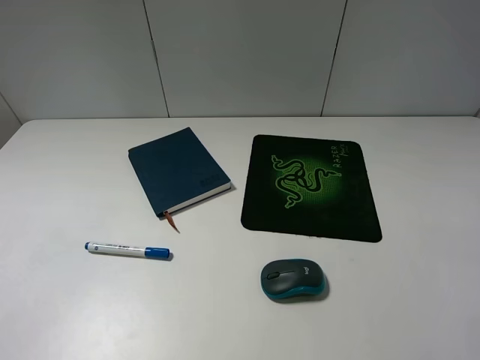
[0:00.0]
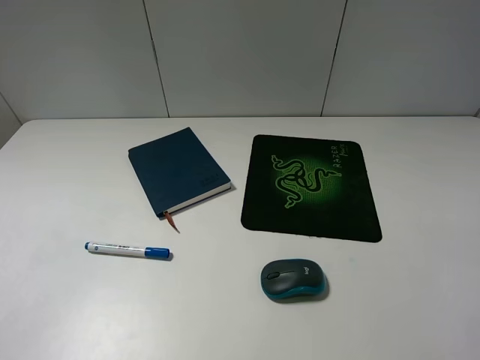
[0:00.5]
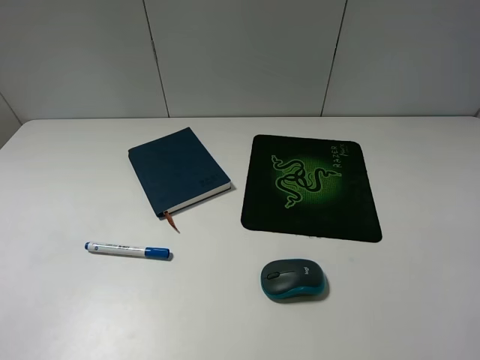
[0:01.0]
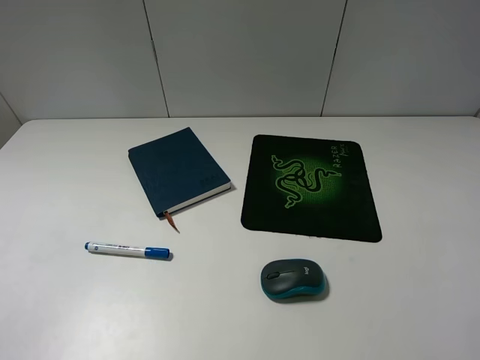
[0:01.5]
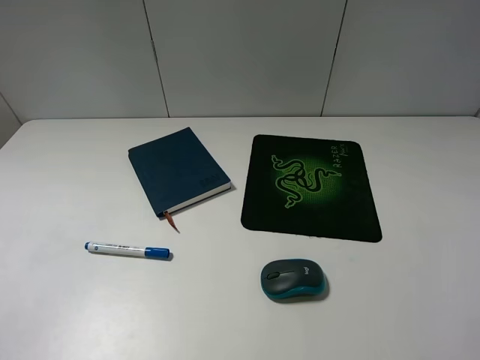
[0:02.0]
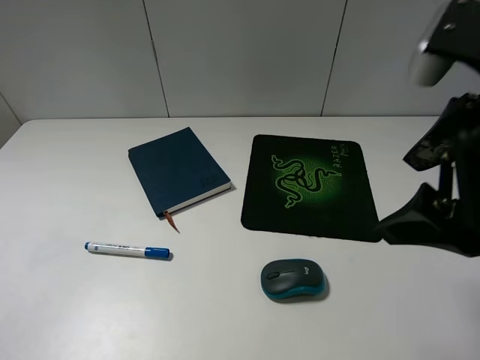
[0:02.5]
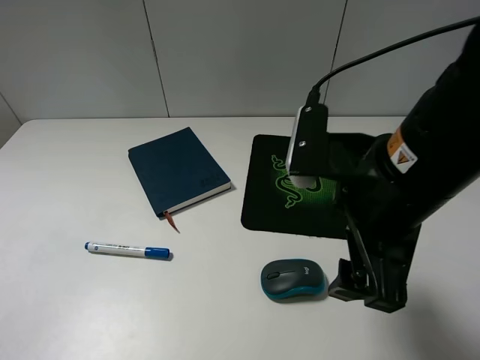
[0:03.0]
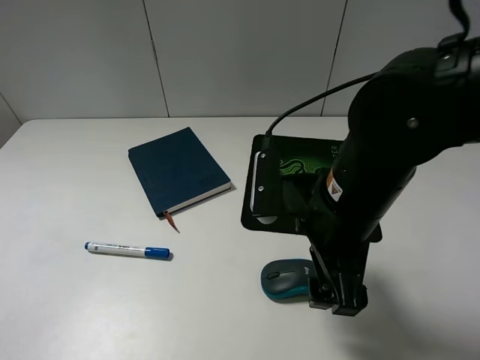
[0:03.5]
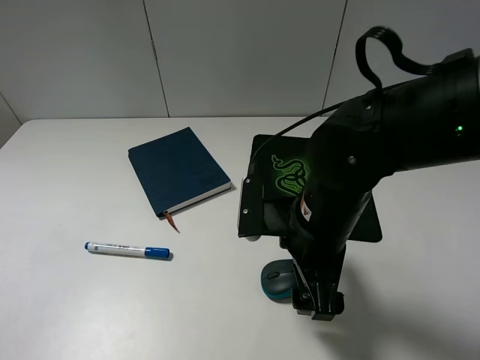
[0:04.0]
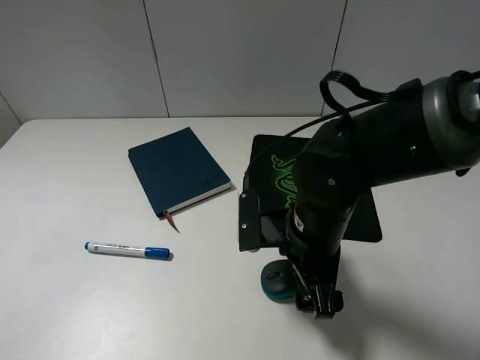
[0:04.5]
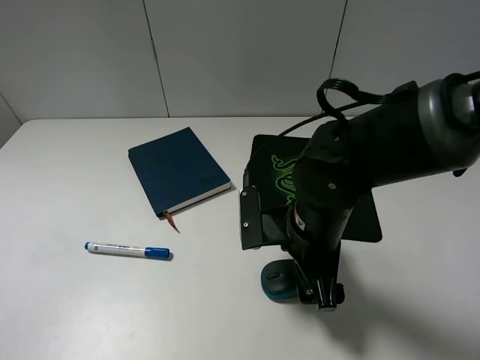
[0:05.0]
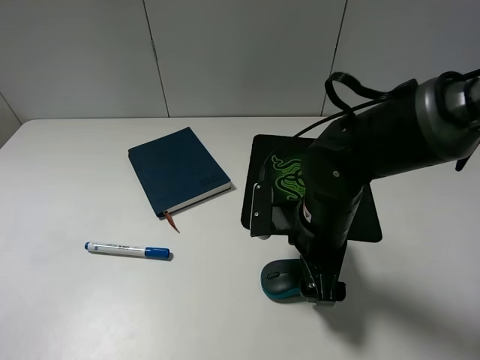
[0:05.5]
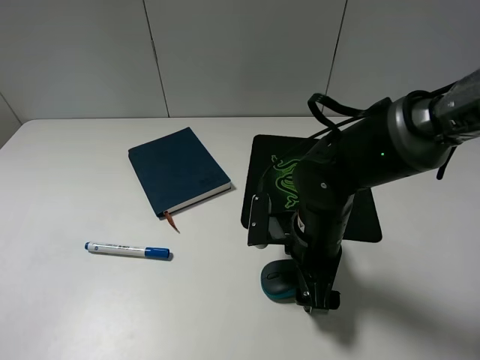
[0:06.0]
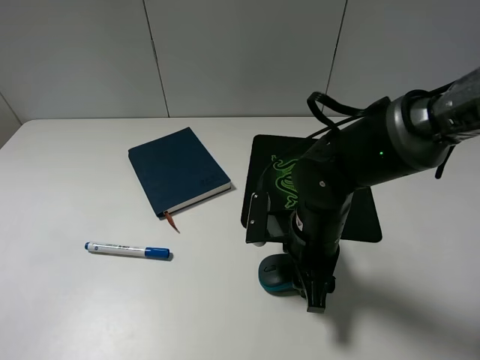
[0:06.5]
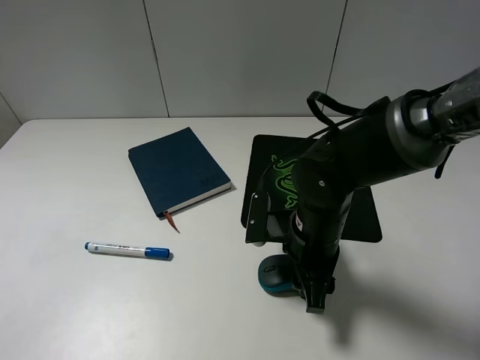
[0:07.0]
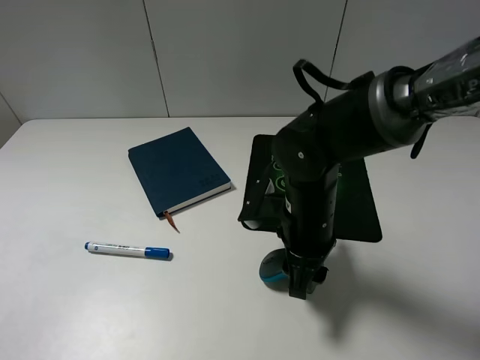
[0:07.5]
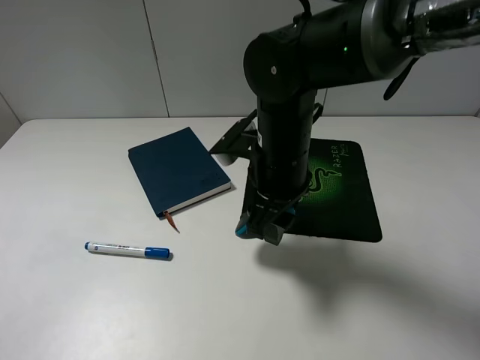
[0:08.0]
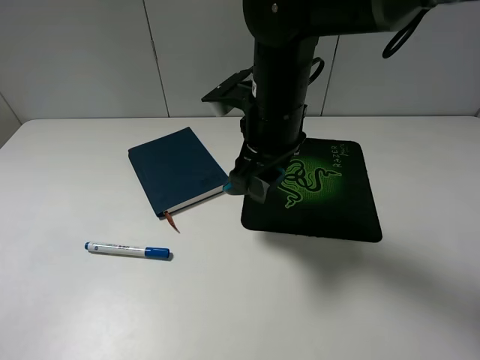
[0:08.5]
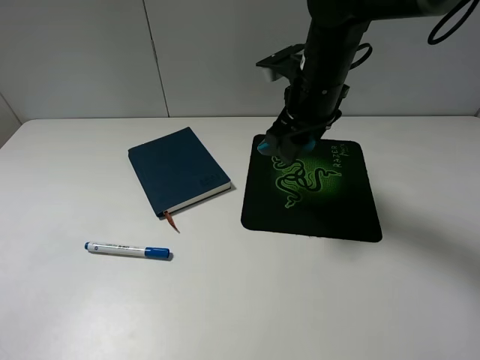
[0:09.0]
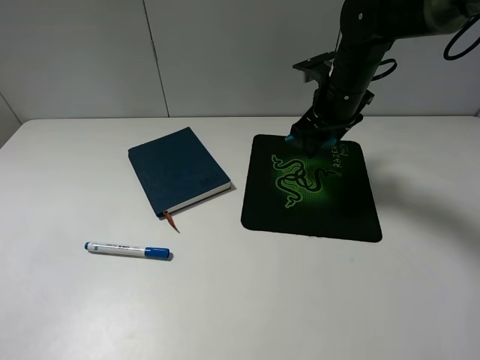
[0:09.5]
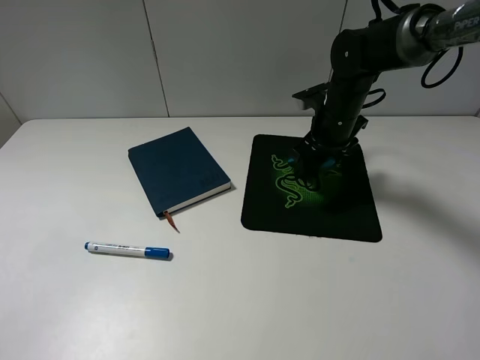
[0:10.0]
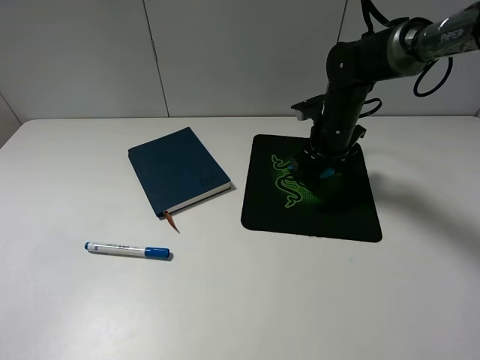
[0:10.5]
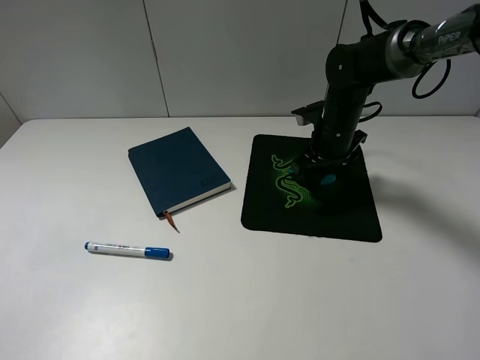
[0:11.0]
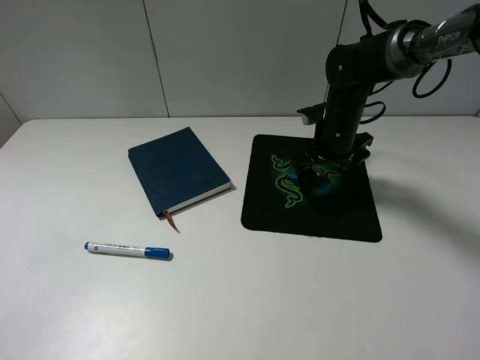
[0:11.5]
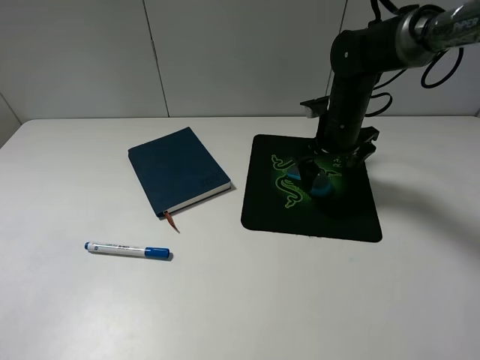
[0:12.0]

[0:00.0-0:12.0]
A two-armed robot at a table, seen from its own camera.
Step, 0:00.0 to 0:06.5: Grasp the mouse with the right gripper.
Step, 0:07.0 to 0:11.5: Place the mouse on the mouse pad with the right gripper.
0:02.0 to 0:04.0: The right gripper moves downward, to the left and forward, some 30 cm.
0:04.0 to 0:06.0: The right gripper travels downward by about 5 cm.
0:06.0 to 0:08.0: The right gripper goes about 10 cm upward and to the left, and closes.
0:08.0 to 0:10.0: The right gripper shifts some 20 cm forward and to the right.
0:10.0 to 0:12.0: The right gripper opens its fingers.

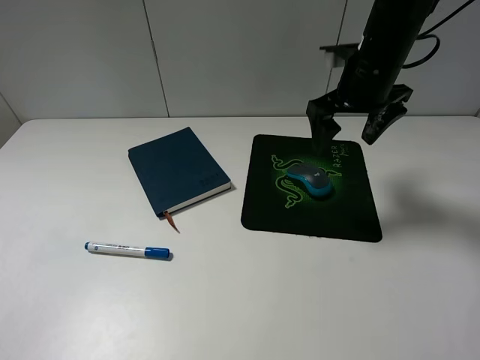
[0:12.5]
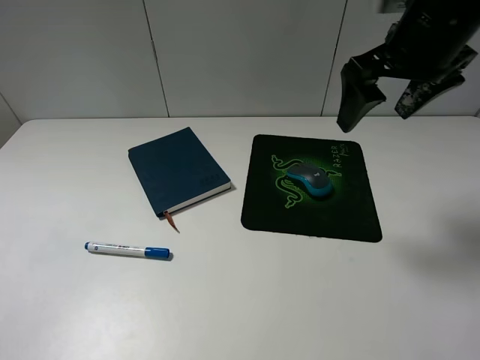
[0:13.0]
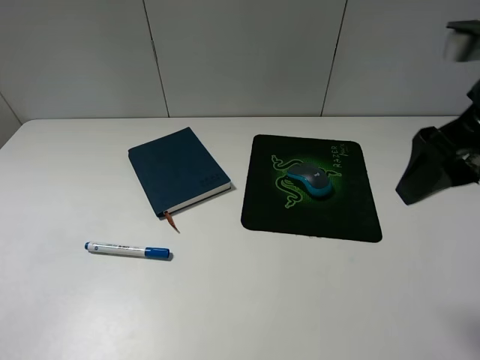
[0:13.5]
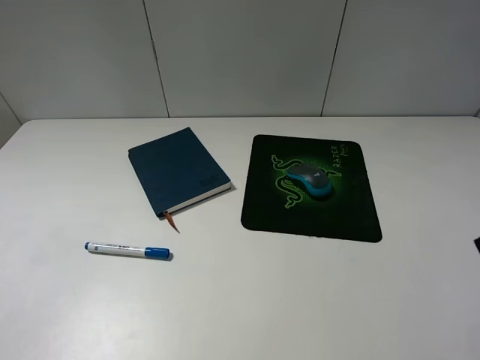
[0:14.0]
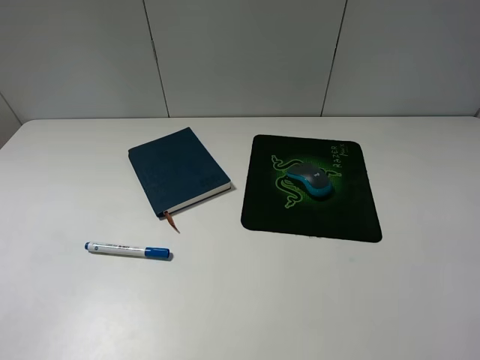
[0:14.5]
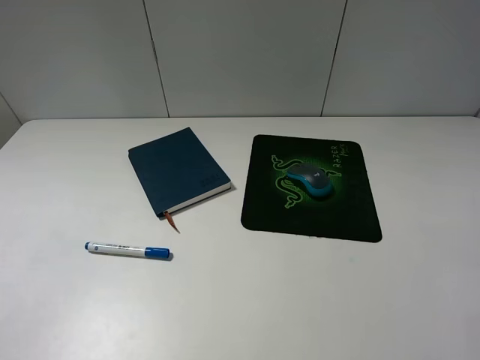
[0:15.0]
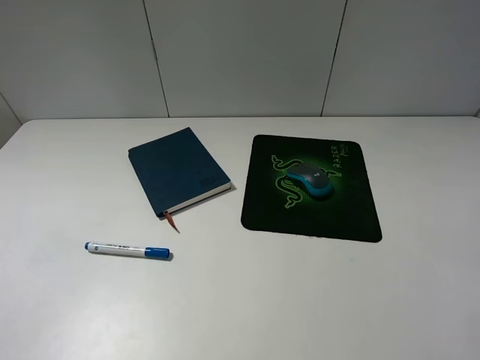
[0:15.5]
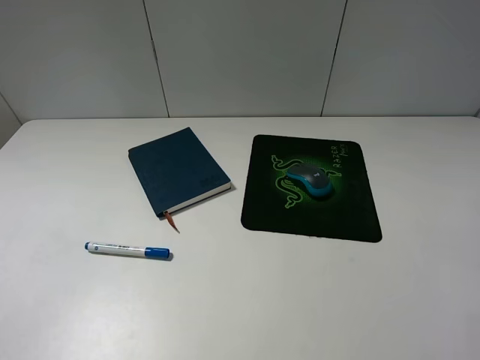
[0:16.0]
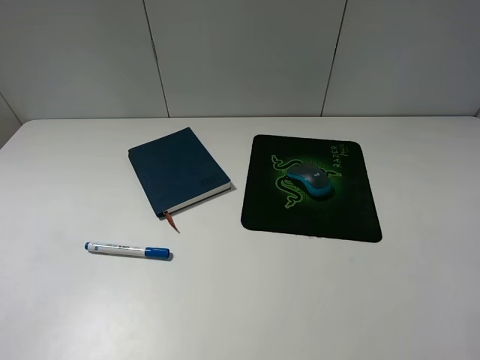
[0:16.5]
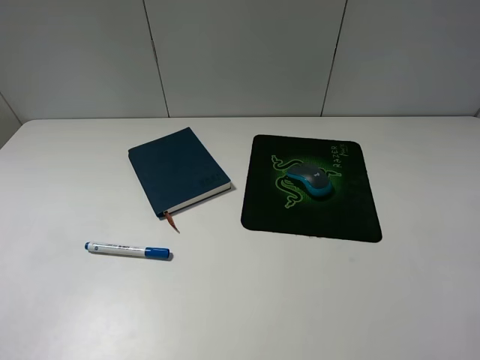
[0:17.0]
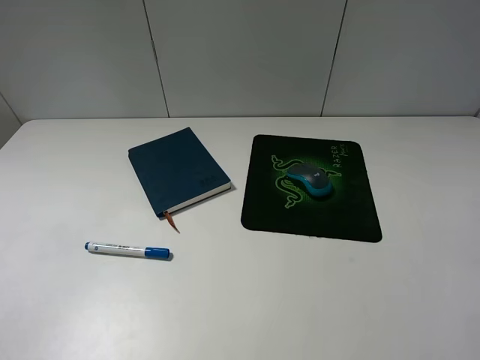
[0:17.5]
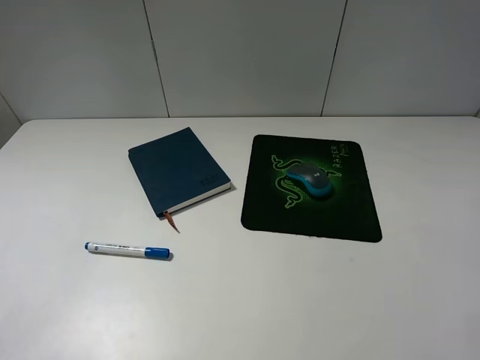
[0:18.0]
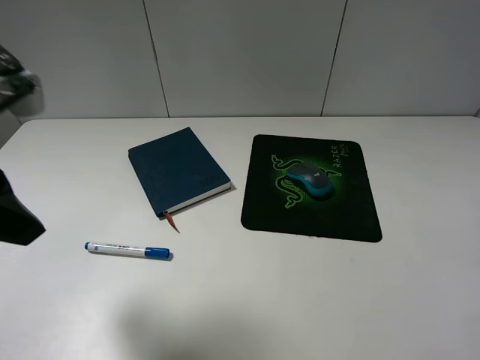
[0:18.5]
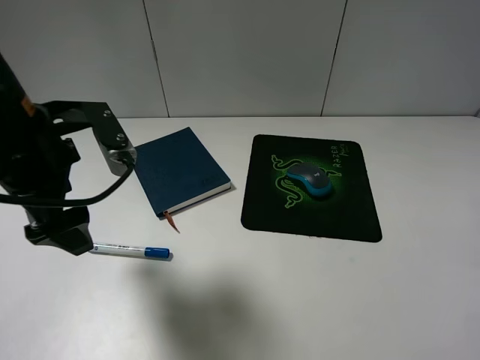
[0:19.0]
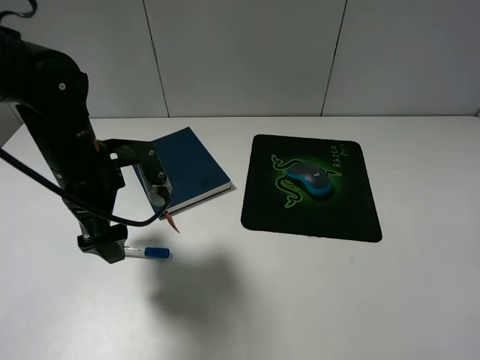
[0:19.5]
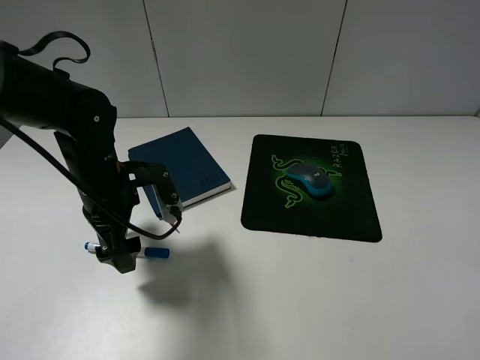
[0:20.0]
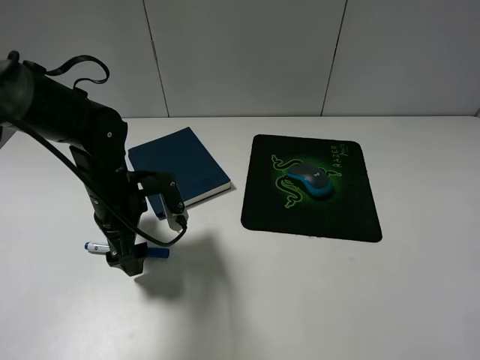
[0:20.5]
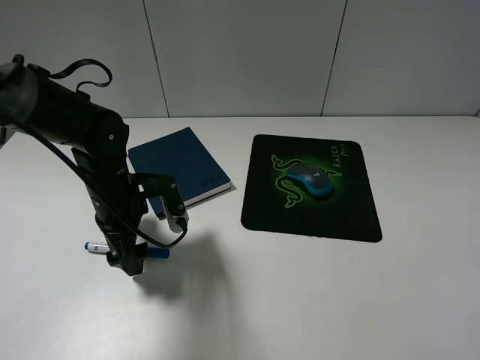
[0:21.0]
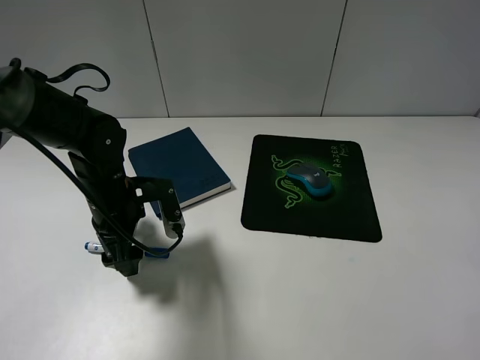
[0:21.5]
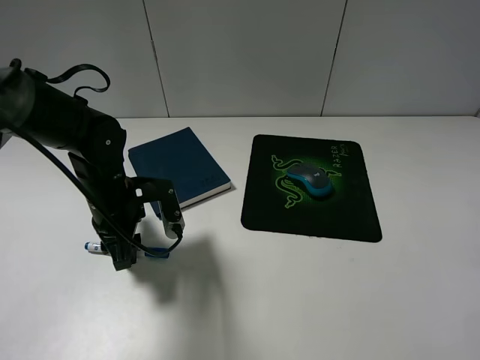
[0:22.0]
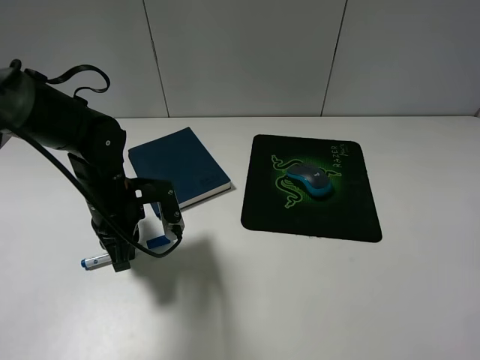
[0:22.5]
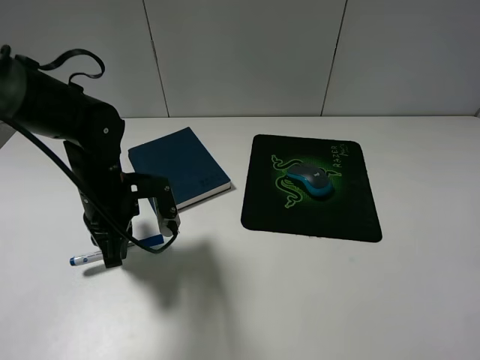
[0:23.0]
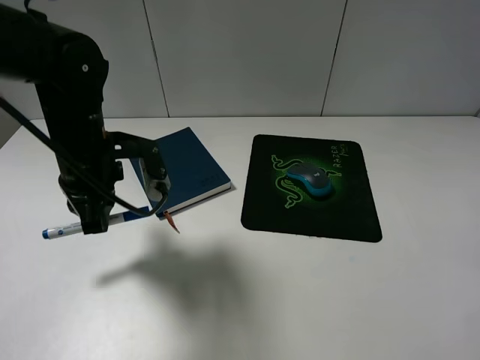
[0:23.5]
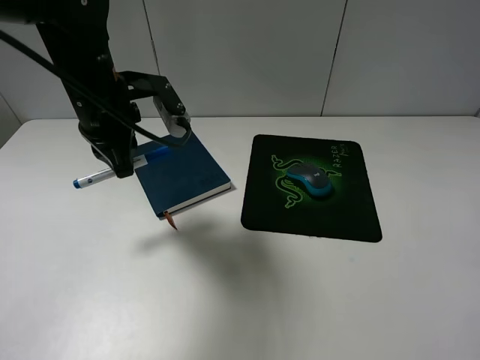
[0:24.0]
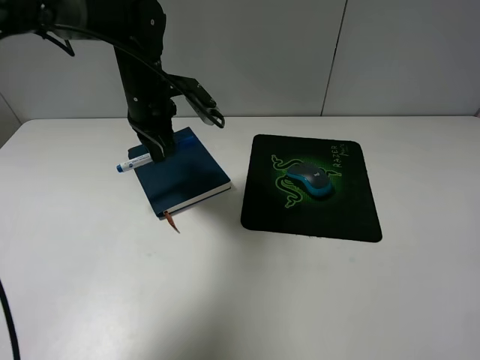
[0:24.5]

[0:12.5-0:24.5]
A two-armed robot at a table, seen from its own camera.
Step, 0:12.5 to 0:22.5: Grasp the marker with the left gripper.
0:12.5 to 0:14.5: The right gripper moves backward, some 35 cm.
0:16.5 to 0:18.5: The left gripper heads forward and to the right, covering roughly 20 cm.
0:18.5 to 0:20.5: The left gripper moves downward and forward, roughly 25 cm.
0:20.5 to 0:22.5: The left gripper closes its fingers.
0:22.5 to 0:24.5: The left gripper moves forward and upward, roughly 15 cm.

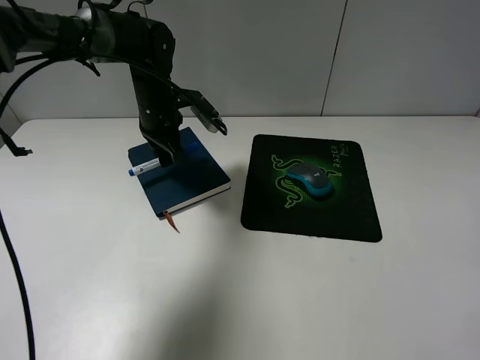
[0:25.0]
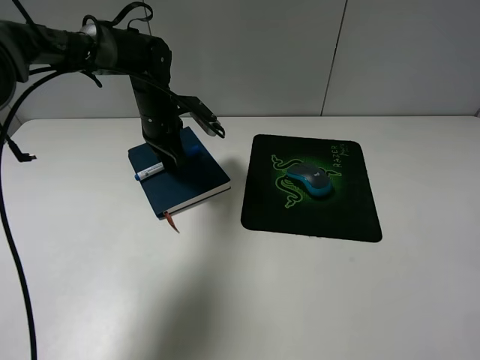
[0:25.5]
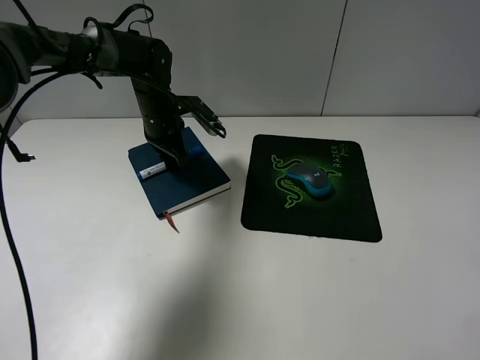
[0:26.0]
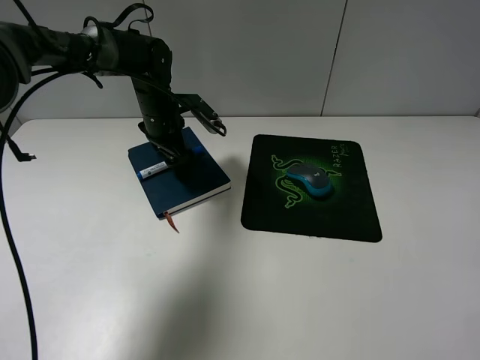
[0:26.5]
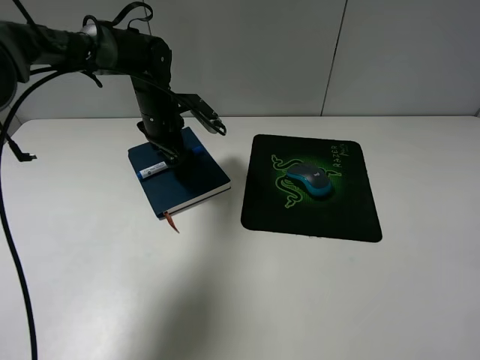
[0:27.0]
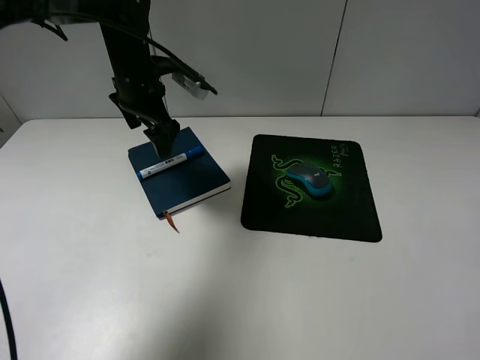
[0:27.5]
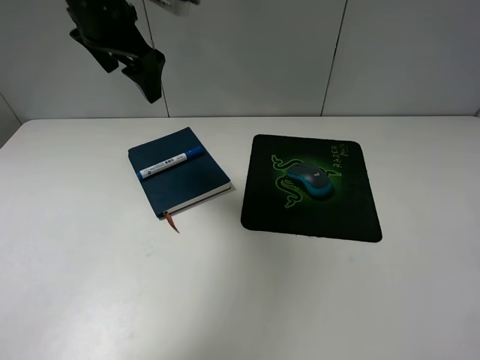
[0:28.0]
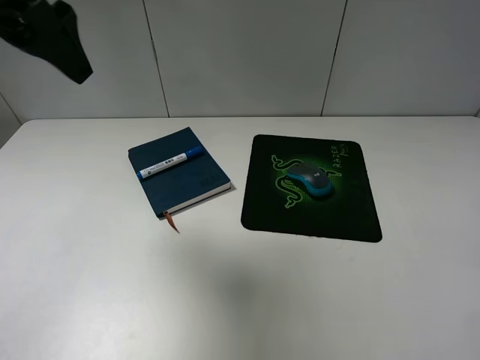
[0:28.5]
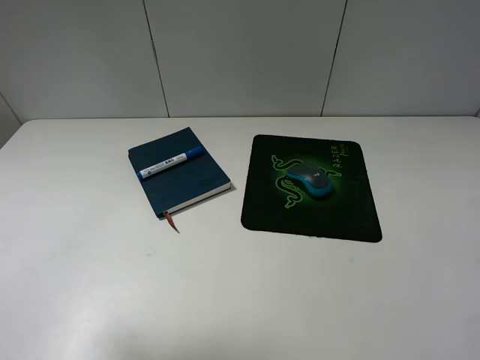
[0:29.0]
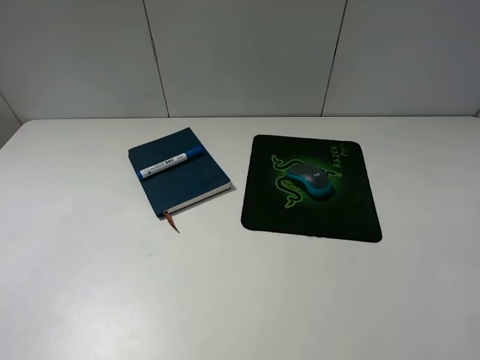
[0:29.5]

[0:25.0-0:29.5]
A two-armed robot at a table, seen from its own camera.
Step, 0:25.0 to 0:27.0: Place the marker on the notebook with the left gripper.
0:25.0 to 0:27.0: The left gripper opens.
0:27.0 to 0:29.5: The left gripper moves backward and upward, some 50 cm.
